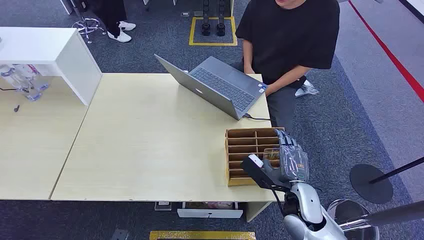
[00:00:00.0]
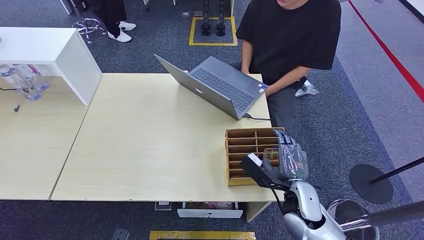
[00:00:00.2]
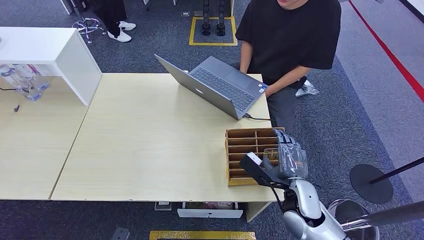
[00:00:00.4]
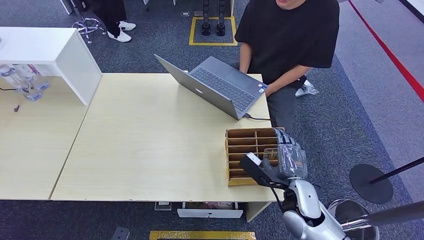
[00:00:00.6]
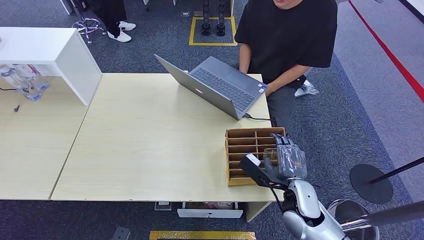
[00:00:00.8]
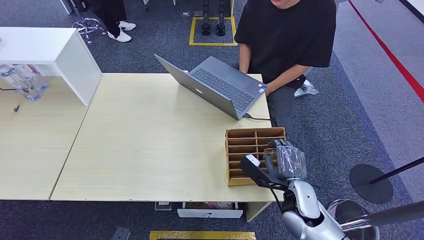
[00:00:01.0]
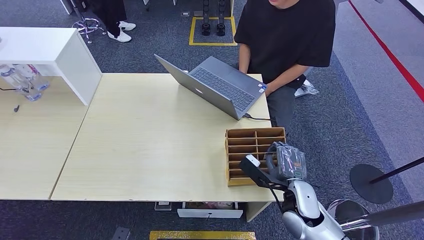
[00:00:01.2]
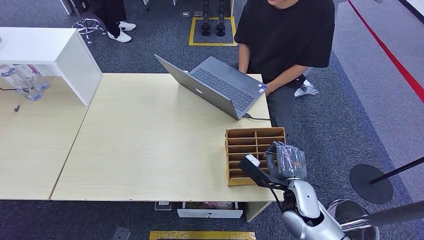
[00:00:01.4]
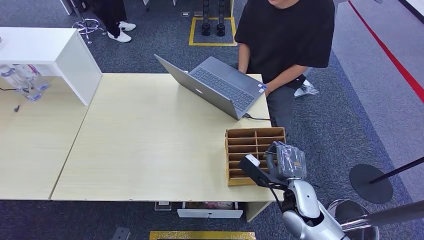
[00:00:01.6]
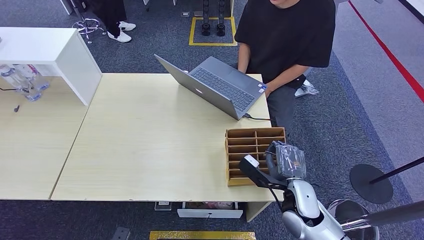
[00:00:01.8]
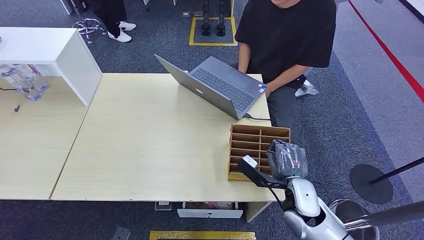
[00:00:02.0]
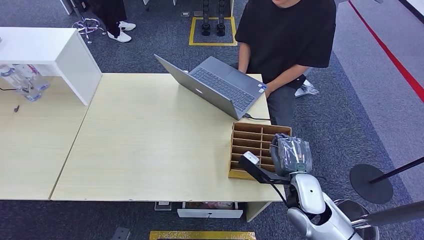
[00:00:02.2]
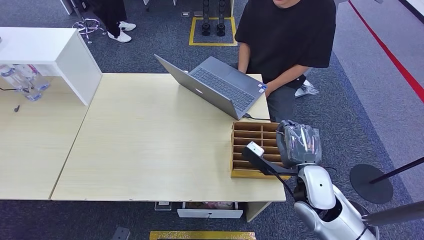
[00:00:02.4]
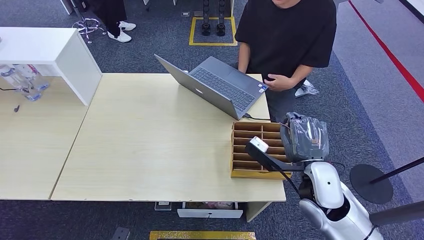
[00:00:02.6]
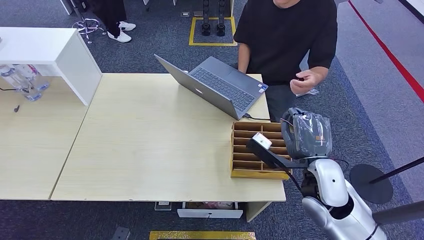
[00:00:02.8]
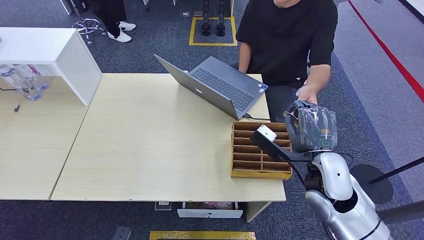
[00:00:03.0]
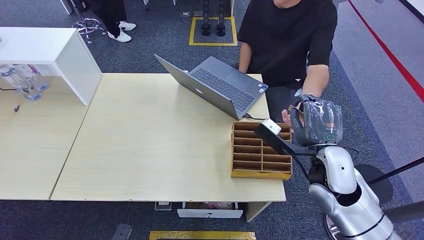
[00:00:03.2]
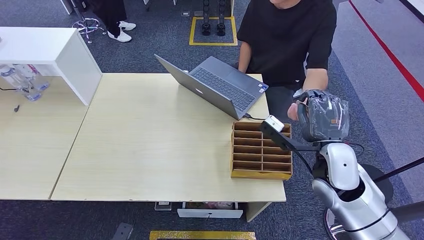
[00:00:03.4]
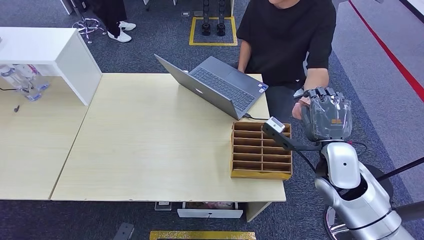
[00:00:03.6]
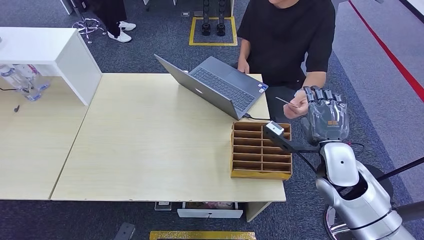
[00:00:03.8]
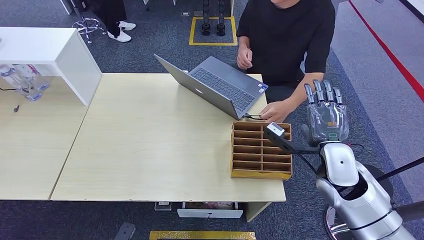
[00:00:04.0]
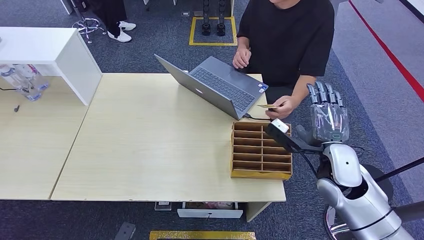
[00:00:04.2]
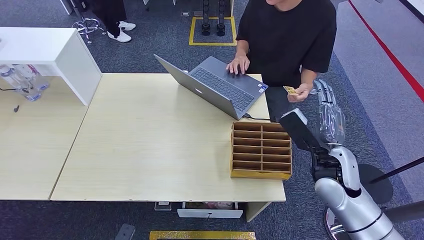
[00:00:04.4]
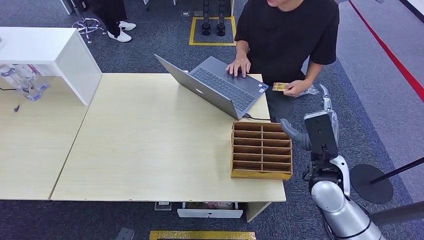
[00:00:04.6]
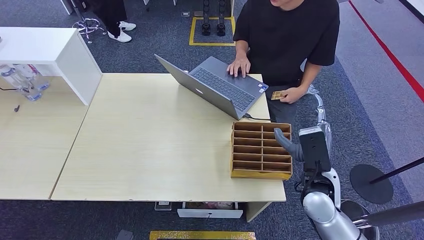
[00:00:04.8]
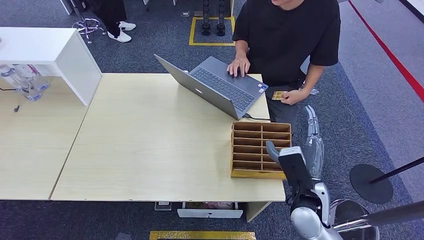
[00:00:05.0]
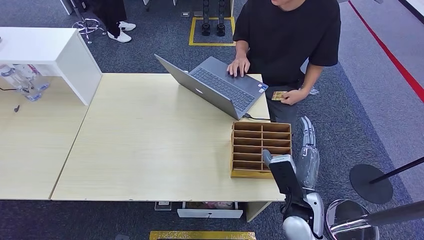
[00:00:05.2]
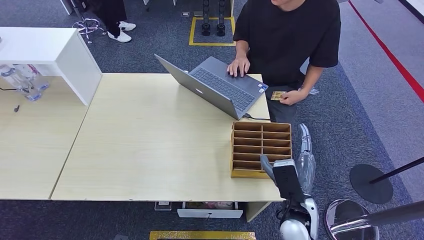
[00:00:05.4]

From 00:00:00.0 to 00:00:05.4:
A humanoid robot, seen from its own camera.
Step, from 00:00:00.0 to 00:00:02.6: Pick up the key card from the card box.
Step, from 00:00:02.8 to 00:00:05.4: Hand the key card to the target.
From 00:00:01.4 to 00:00:02.8: The right hand heads upward, covering some 10 cm.
From 00:00:02.8 to 00:00:04.0: The right hand shifts by roughly 5 cm.
From 00:00:04.0 to 00:00:05.4: The right hand shifts roughly 15 cm to the left, downward and backward.

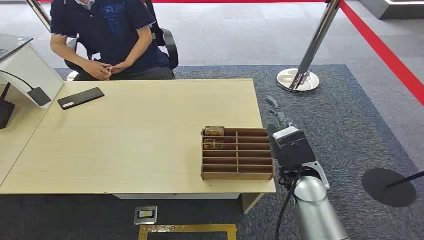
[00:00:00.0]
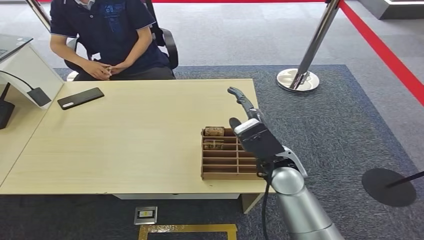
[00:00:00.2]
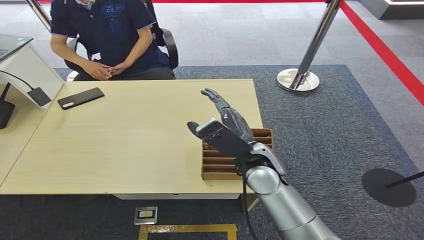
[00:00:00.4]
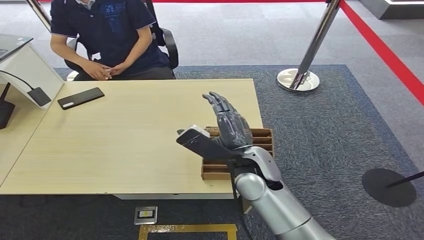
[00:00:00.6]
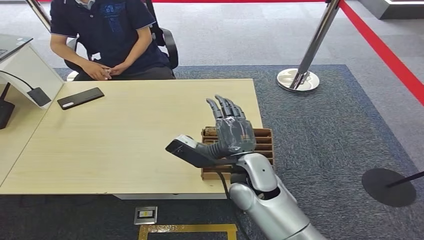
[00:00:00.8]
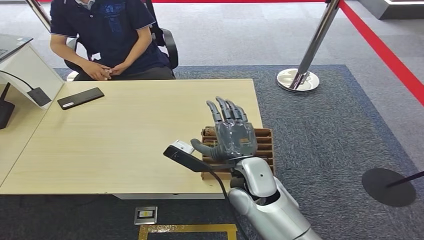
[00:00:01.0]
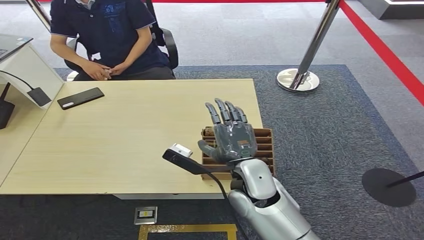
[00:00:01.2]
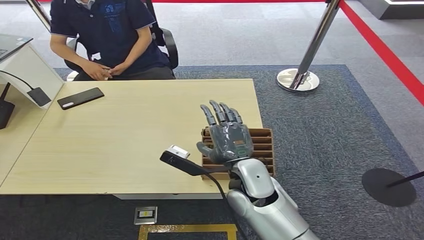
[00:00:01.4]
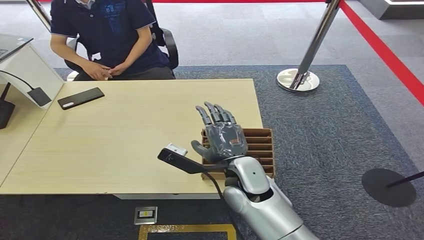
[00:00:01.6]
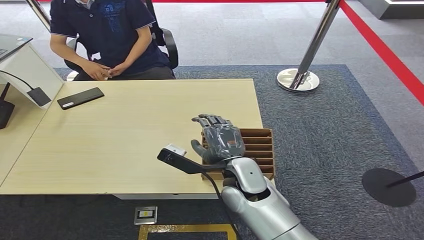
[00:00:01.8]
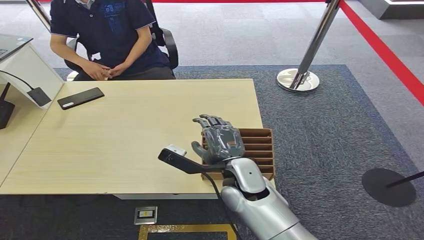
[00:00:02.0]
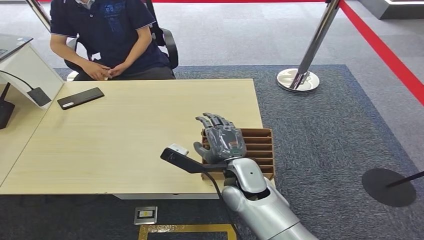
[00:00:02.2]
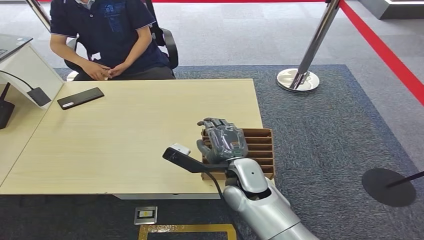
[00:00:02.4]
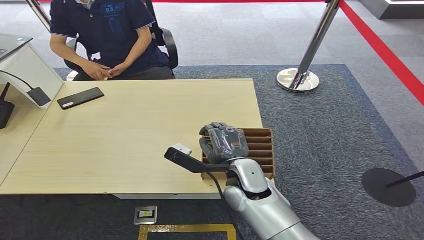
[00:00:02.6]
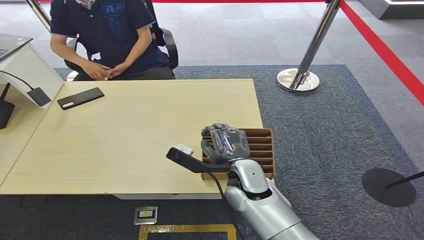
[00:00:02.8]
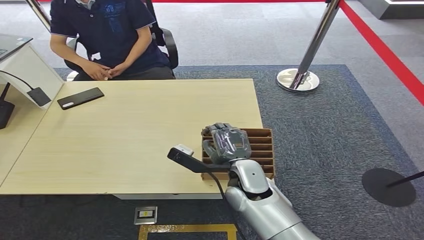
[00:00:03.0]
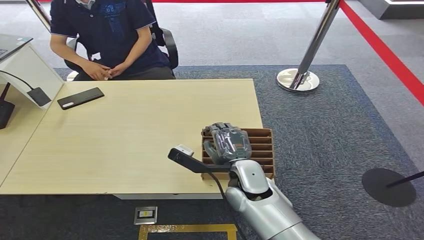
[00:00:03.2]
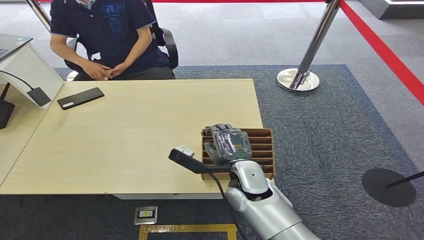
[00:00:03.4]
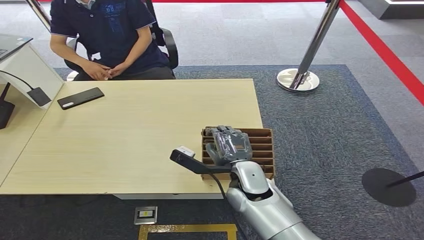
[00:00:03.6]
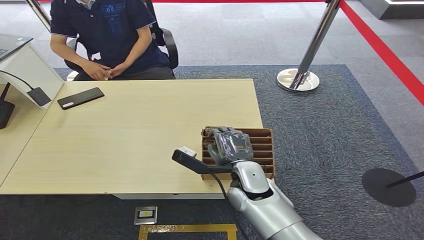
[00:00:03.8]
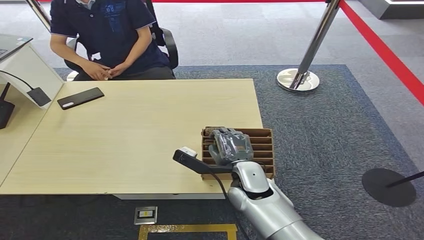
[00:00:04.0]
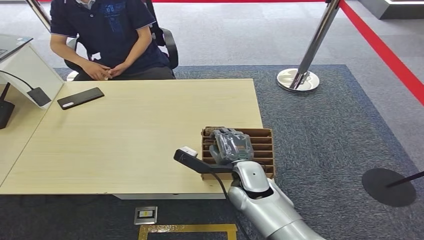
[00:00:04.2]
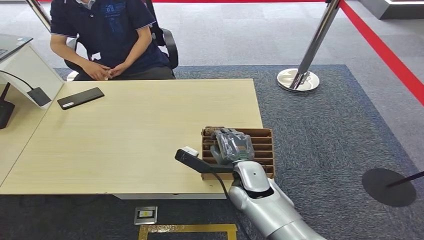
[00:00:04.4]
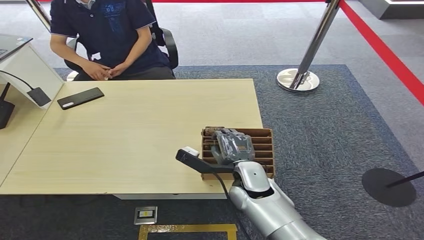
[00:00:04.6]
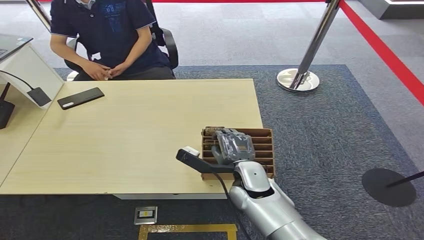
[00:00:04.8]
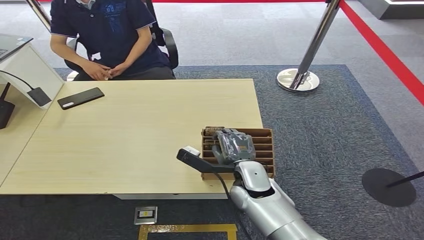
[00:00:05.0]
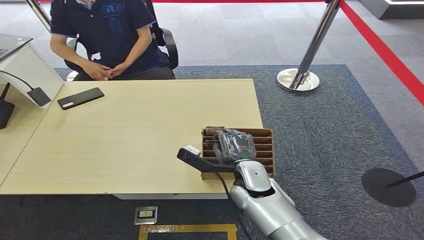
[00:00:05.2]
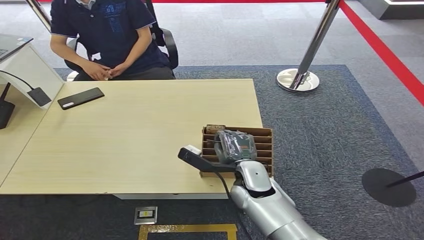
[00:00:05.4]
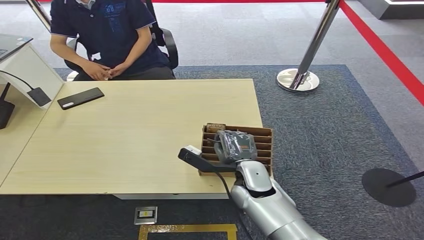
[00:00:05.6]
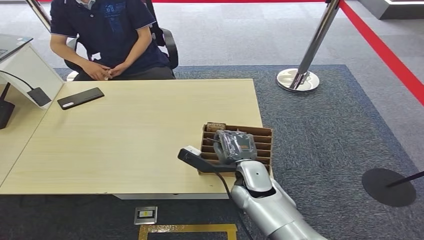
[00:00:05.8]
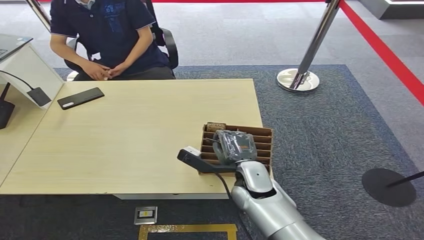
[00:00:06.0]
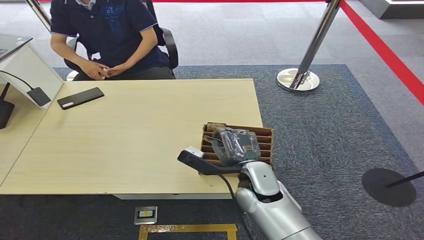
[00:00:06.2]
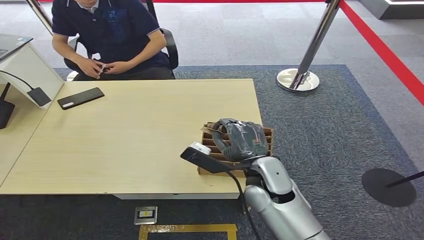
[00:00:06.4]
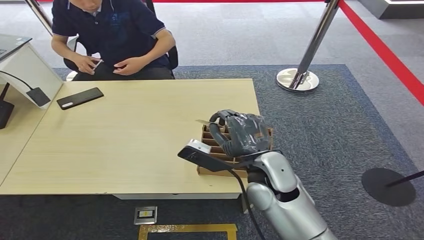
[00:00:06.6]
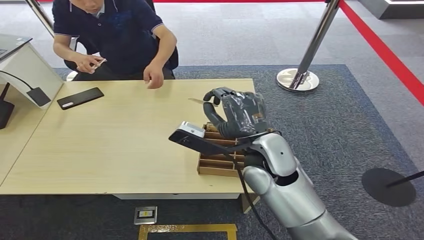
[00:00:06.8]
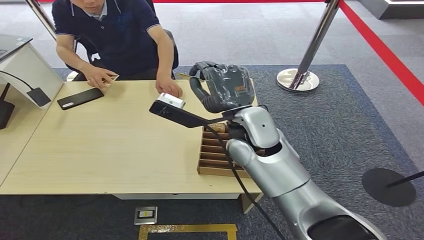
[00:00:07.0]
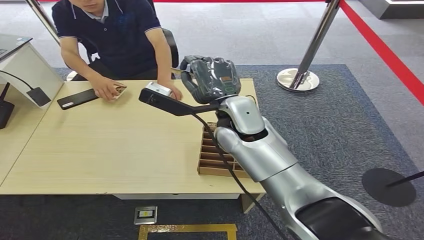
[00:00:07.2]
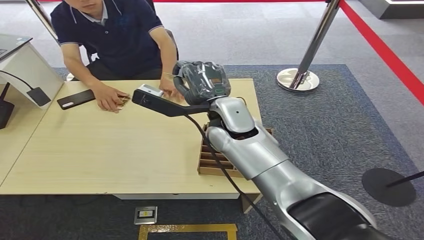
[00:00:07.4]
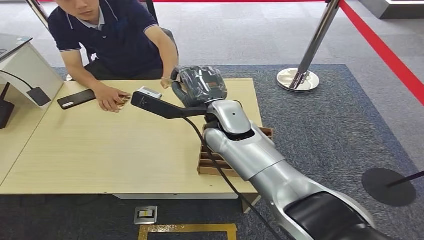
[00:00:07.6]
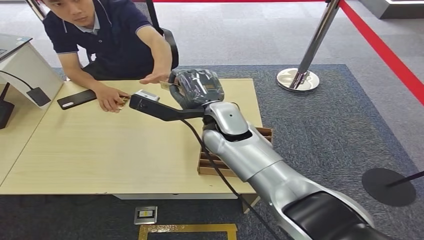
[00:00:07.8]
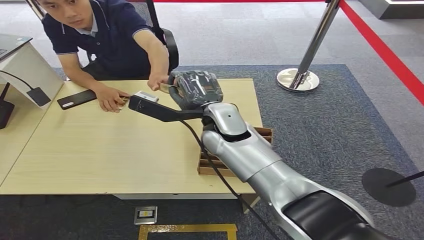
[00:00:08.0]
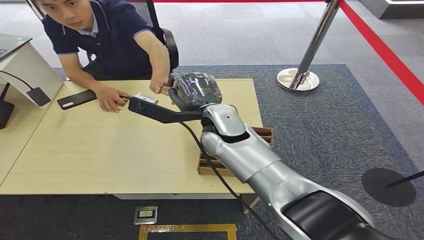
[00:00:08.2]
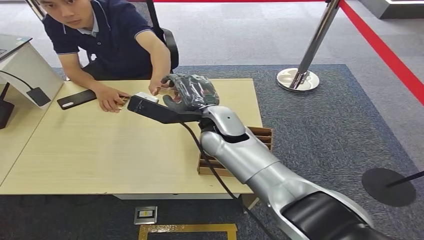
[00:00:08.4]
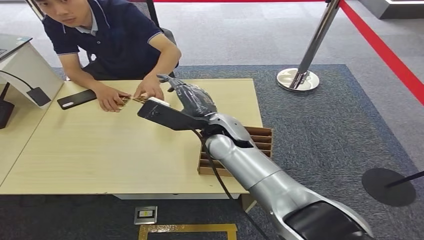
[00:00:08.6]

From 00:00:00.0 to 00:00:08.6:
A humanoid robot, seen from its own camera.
Step, from 00:00:00.0 to 00:00:06.6: Pick up the key card from the card box.
Step, from 00:00:06.8 to 00:00:08.6: Hand the key card to the target.
From 00:00:01.4 to 00:00:02.8: The hands make only small movements.
From 00:00:02.8 to 00:00:04.4: The hands move only a little.
From 00:00:04.4 to 00:00:05.8: Neither hand changes place.
From 00:00:07.2 to 00:00:08.6: The right hand travels downward by roughly 5 cm.
